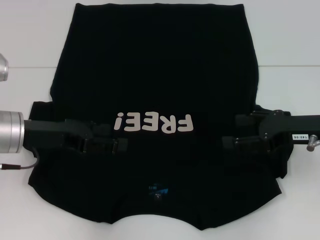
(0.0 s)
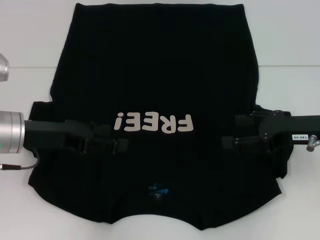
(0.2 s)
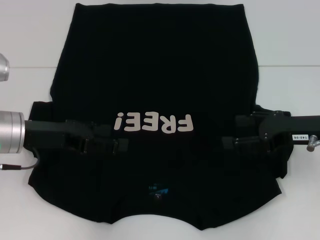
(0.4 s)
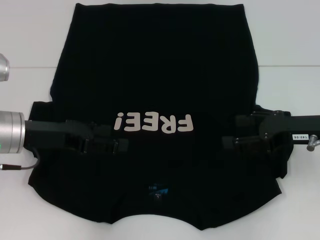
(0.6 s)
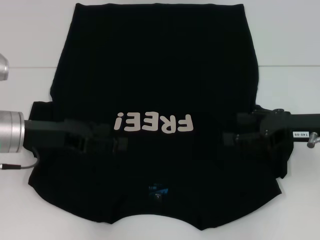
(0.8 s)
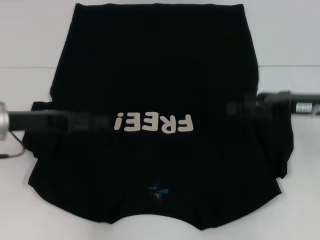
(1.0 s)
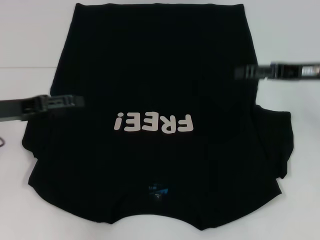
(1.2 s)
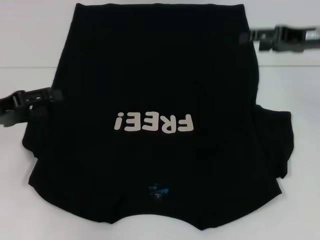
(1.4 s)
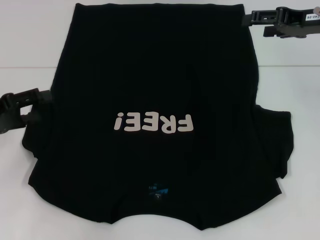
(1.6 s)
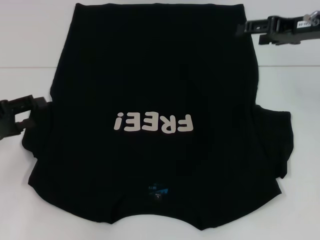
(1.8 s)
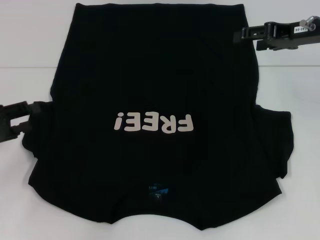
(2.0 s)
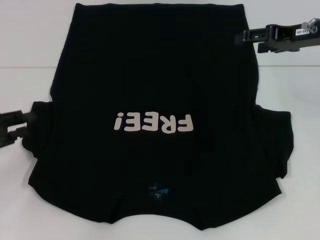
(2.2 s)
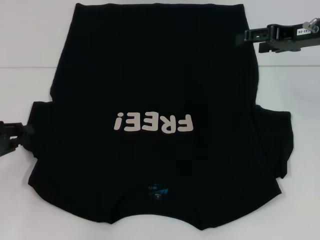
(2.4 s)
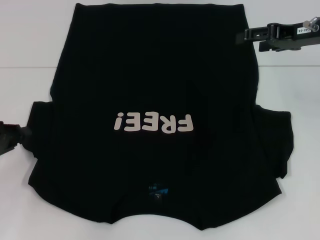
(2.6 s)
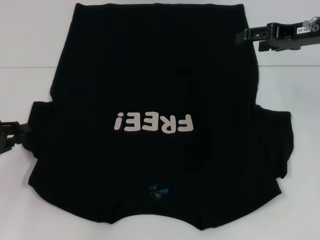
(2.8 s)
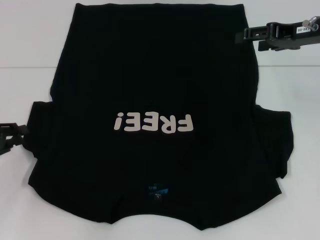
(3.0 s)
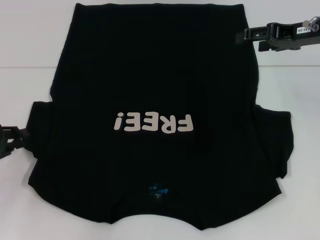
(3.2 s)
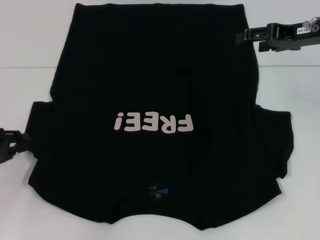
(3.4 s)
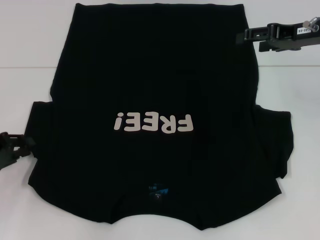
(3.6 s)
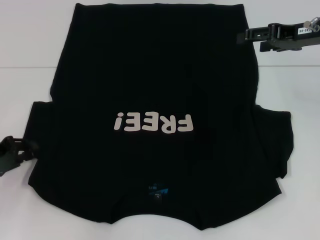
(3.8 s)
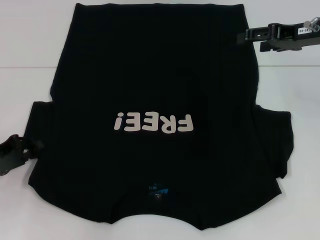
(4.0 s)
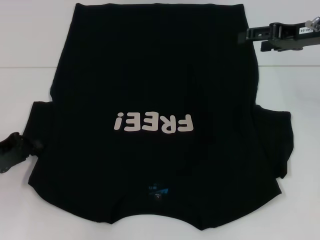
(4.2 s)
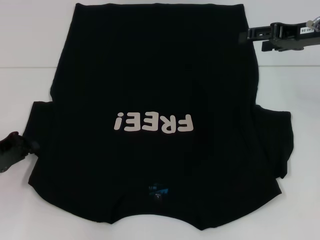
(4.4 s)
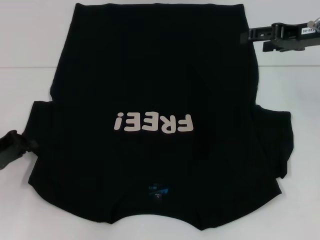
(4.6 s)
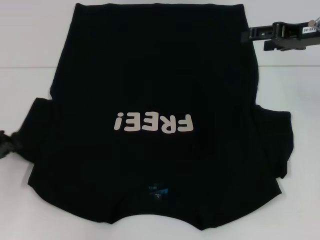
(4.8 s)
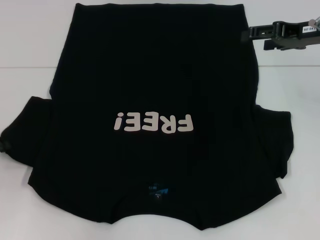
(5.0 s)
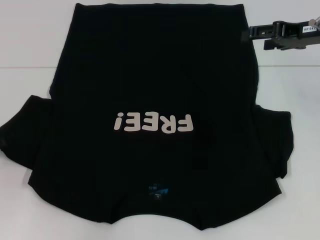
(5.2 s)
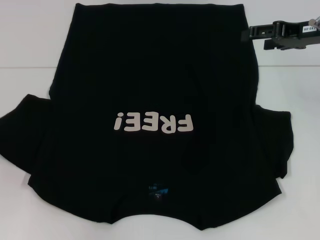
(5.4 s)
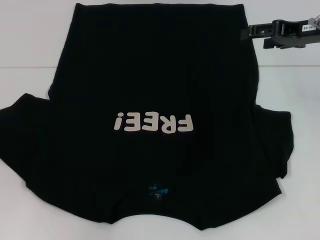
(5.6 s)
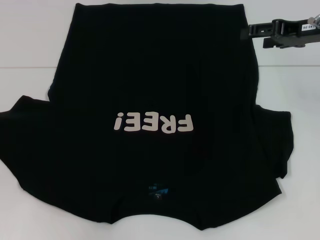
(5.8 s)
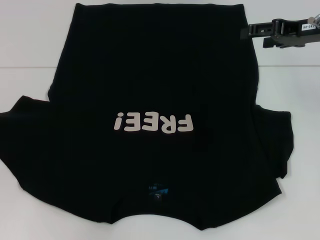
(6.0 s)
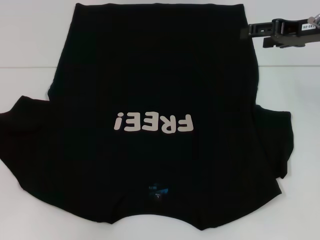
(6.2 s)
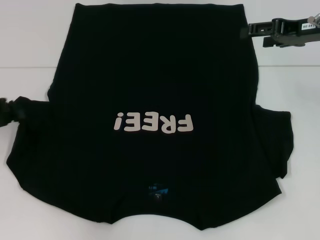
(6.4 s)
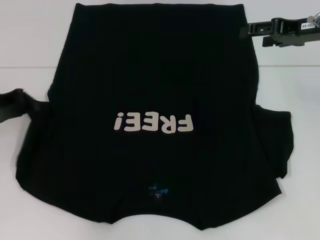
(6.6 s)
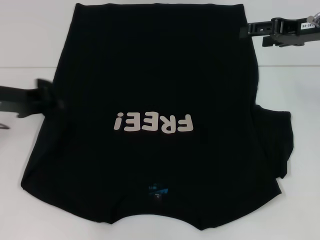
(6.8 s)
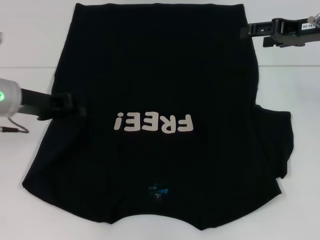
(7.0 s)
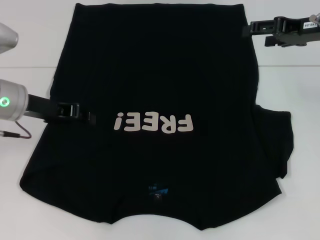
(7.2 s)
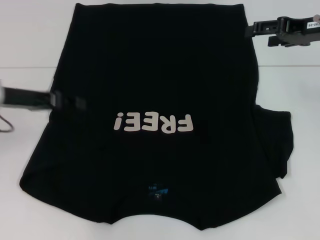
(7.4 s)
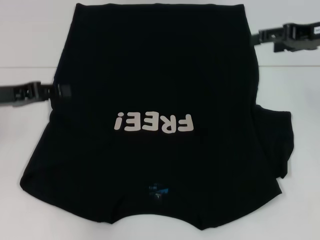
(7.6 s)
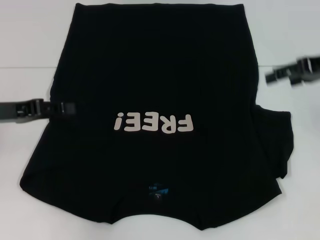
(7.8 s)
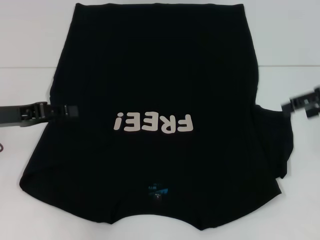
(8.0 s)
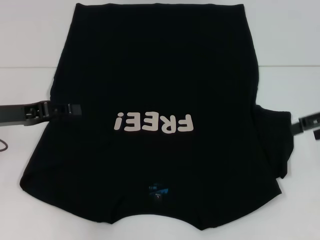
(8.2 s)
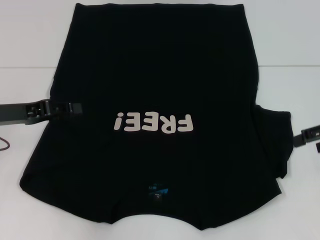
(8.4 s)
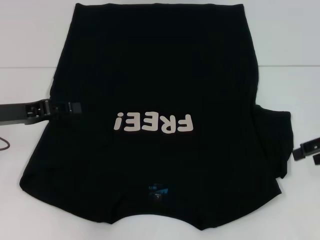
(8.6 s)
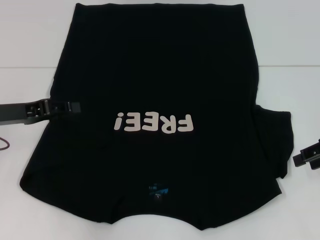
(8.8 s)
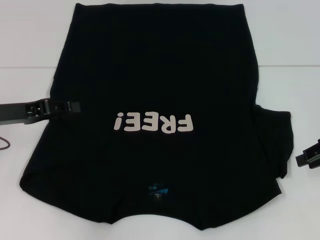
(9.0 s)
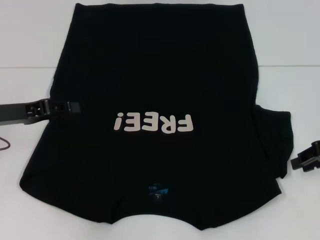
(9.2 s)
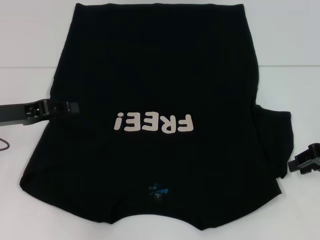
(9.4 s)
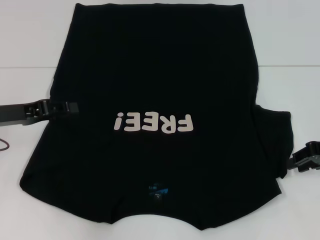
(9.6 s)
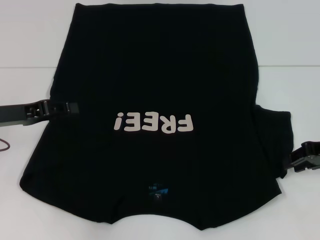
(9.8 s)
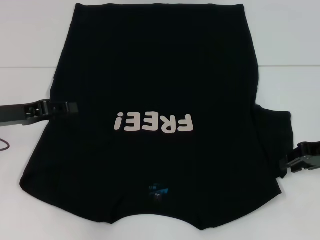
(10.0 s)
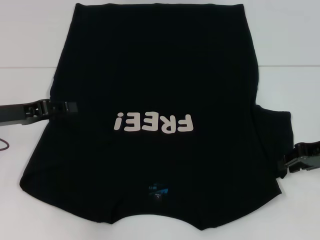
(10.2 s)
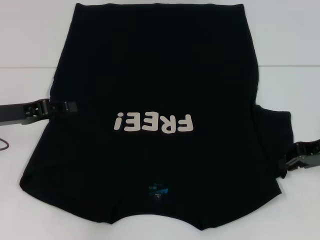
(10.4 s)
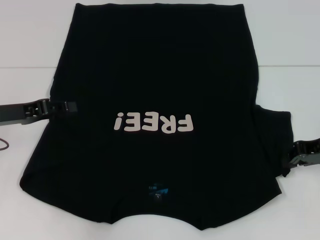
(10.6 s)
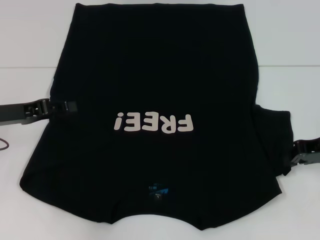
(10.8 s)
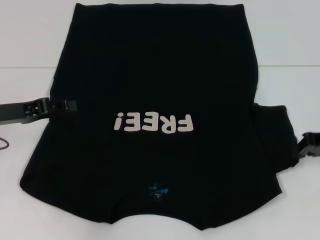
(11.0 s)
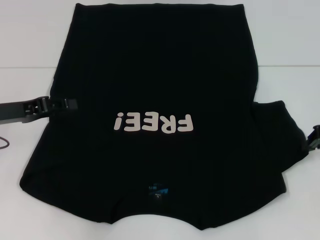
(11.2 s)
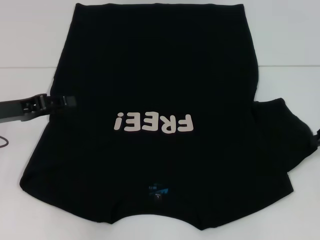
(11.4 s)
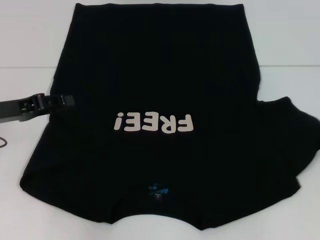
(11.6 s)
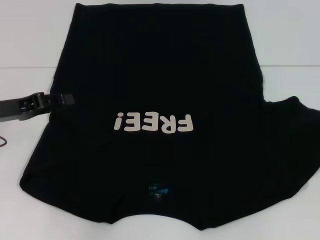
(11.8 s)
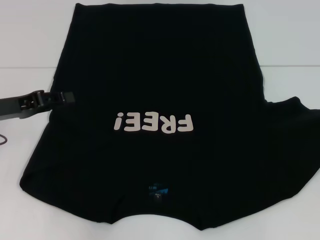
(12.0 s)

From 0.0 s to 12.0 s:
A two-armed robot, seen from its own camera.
Step, from 0.0 s to 7.2 s: Fold the bottom left sleeve with your left hand.
From 0.0 s to 1.6 s: The right gripper moves forward and upward, some 15 cm; the left gripper heads to the left, covering roughly 10 cm.
From 1.6 s to 3.0 s: The left gripper changes place by roughly 5 cm, and closes up.
From 3.0 s to 4.4 s: There are only small adjustments of the grippers.
From 4.4 s to 6.0 s: The left gripper heads to the left, covering roughly 5 cm.
From 6.0 s to 7.6 s: The left gripper is displaced to the right by some 10 cm.
From 7.6 s to 9.0 s: The right gripper shifts about 10 cm downward, backward and to the right, and closes.
From 9.0 s to 10.4 s: There are only small adjustments of the grippers.
From 10.4 s to 12.0 s: The right gripper heads to the right, covering about 10 cm.

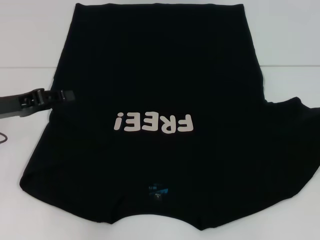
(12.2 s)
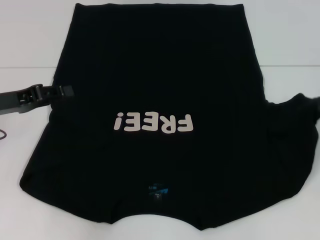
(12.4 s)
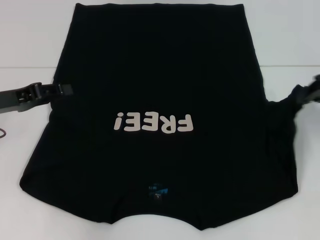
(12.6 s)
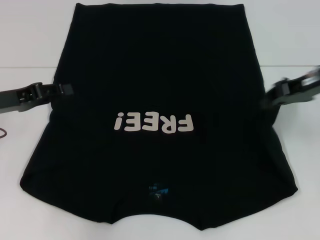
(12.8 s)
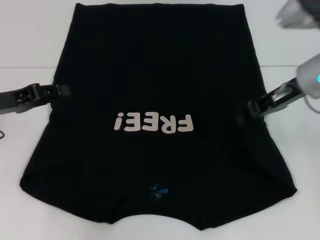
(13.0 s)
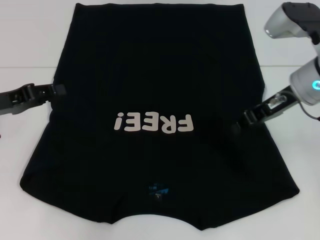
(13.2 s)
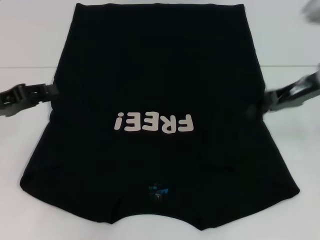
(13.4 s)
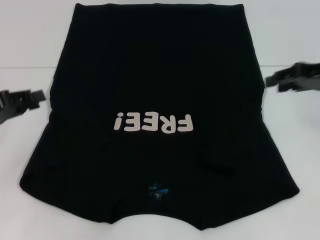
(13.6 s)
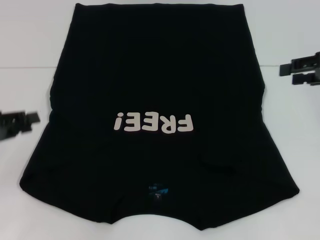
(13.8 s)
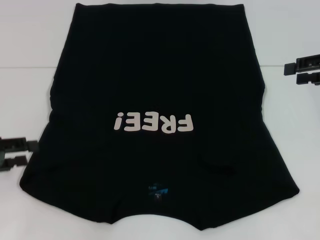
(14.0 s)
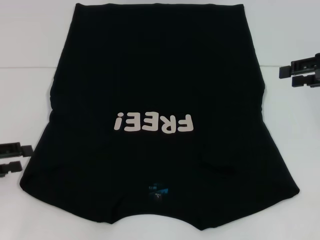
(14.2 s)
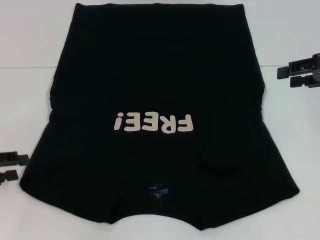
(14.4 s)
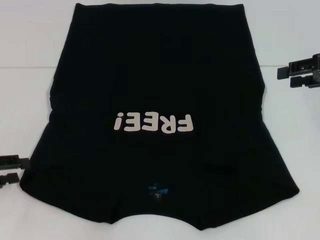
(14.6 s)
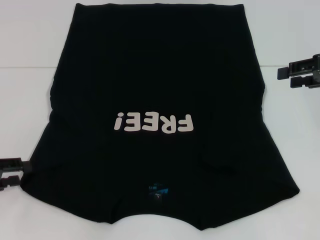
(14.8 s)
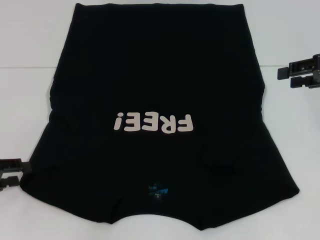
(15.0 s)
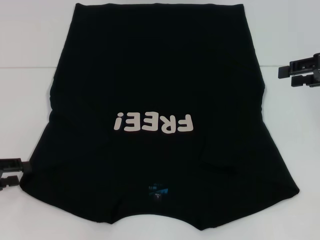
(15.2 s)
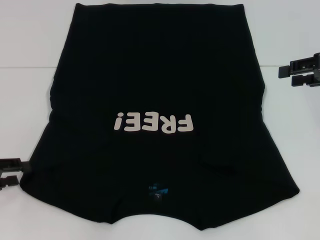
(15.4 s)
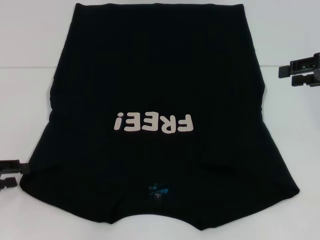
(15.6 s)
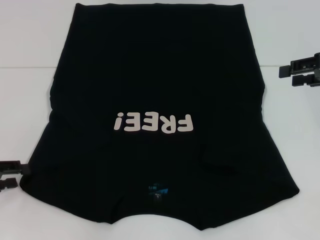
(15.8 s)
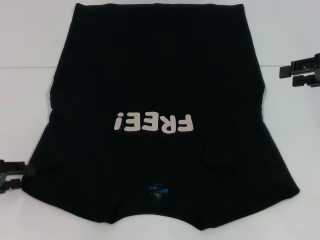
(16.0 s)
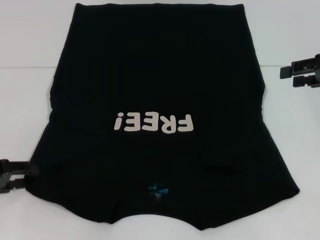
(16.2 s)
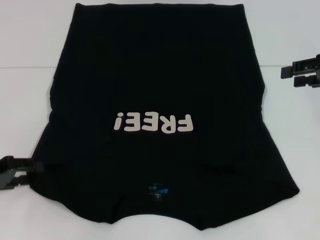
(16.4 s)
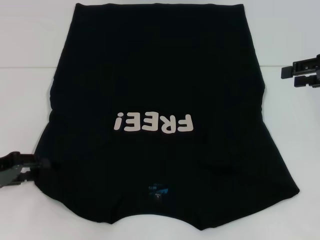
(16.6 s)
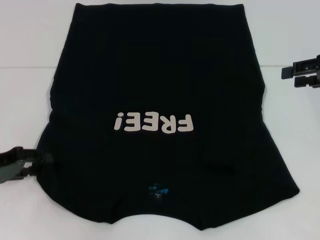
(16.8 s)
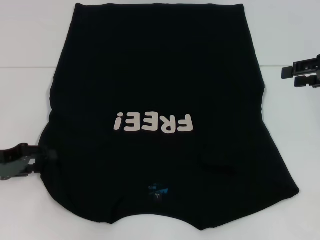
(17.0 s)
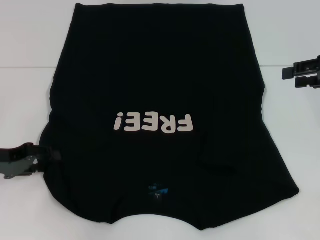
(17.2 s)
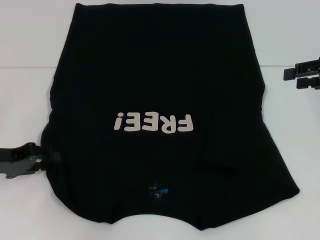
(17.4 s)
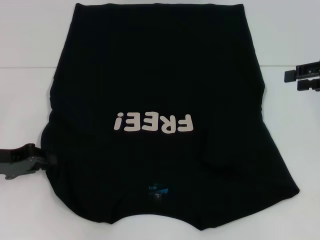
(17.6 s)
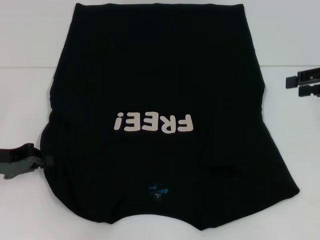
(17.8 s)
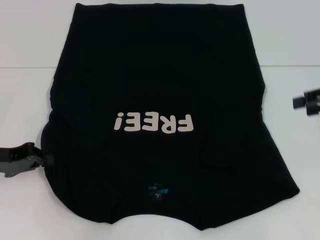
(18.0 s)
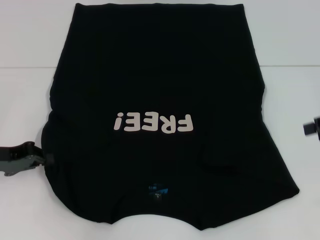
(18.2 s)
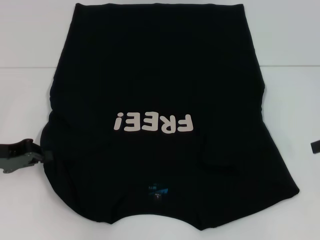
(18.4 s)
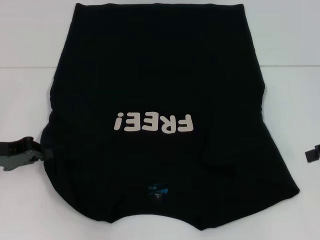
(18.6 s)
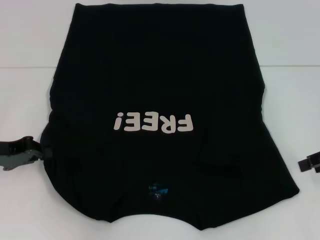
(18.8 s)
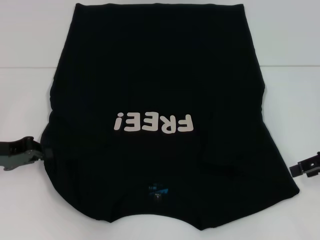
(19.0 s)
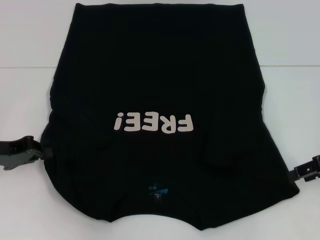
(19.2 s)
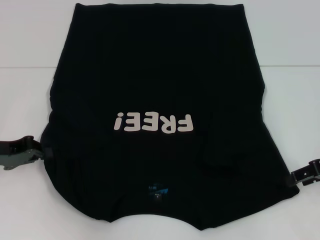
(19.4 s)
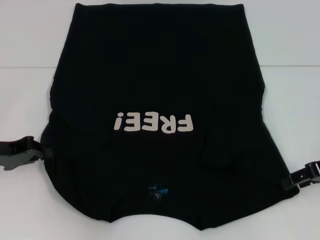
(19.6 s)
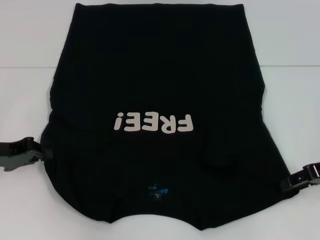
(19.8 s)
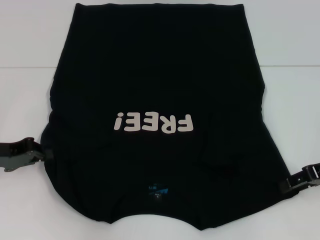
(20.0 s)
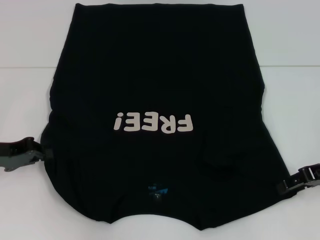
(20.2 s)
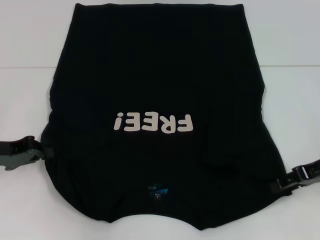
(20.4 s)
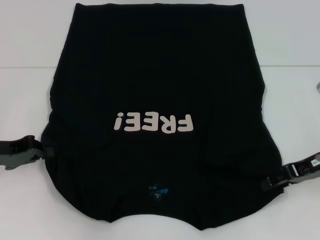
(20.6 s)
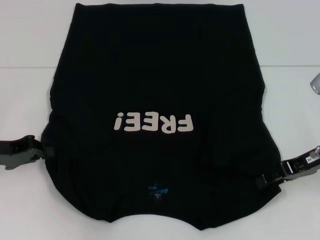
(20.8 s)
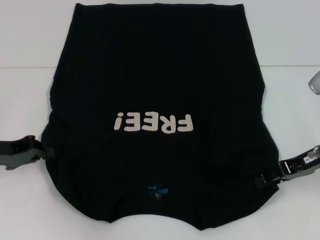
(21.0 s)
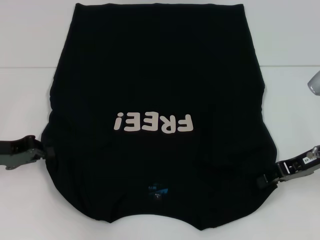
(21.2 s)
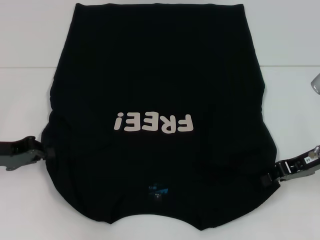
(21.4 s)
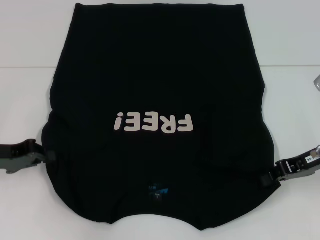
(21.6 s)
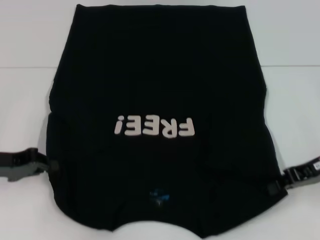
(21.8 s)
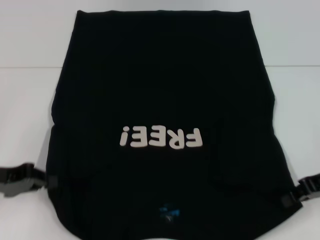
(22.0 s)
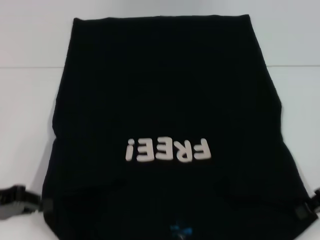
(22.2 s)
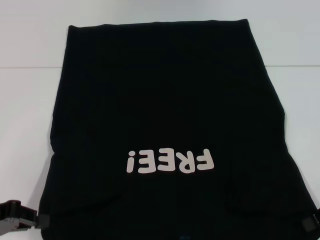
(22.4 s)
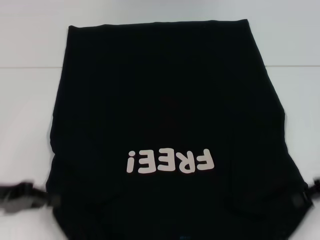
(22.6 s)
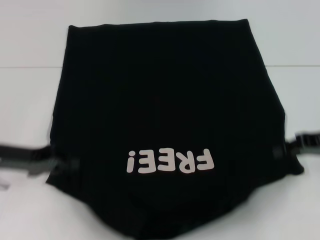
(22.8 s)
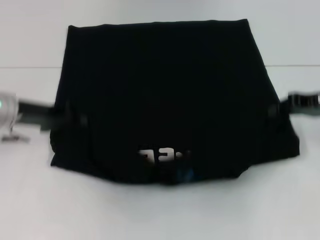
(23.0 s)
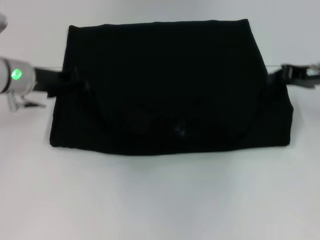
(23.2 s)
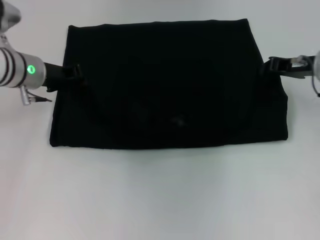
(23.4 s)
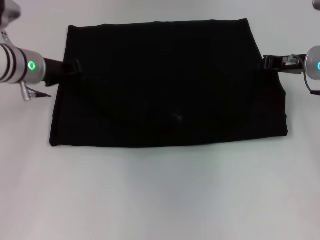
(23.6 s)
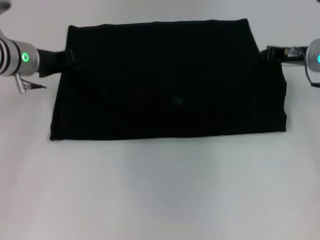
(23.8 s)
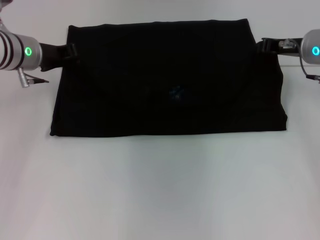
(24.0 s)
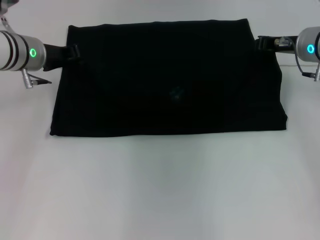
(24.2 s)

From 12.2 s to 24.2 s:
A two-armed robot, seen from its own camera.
Step, from 13.4 s to 17.8 s: Grab the bottom left corner with your left hand.
Step, from 18.0 s to 21.6 s: Grab the bottom right corner with your right hand.
From 12.2 s to 13.8 s: The right gripper travels to the left and back again, some 15 cm each way, and opens up; the left gripper changes place by approximately 5 cm.
From 15.2 s to 16.6 s: The grippers make only small movements.
From 16.6 s to 18.2 s: The right gripper changes place by some 5 cm; the left gripper closes up.
From 18.2 s to 19.8 s: The right gripper is displaced downward by some 5 cm.
From 19.8 s to 21.2 s: The grippers make only small movements.
From 21.2 s to 22.6 s: The right gripper is displaced to the right by approximately 5 cm, and closes, while the left gripper is displaced backward by about 5 cm.
From 22.6 s to 24.2 s: The right gripper heads forward and to the left, covering approximately 20 cm. Meanwhile the left gripper shifts some 20 cm forward and to the right.
